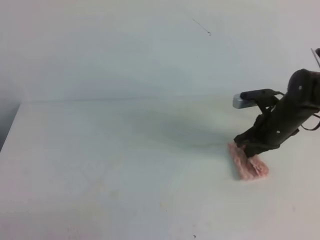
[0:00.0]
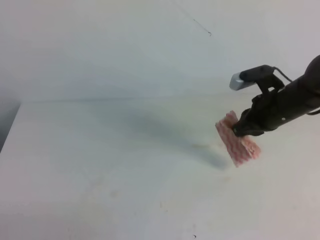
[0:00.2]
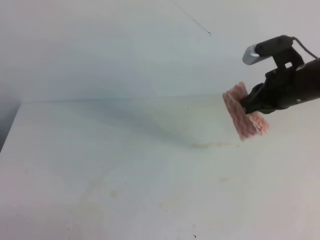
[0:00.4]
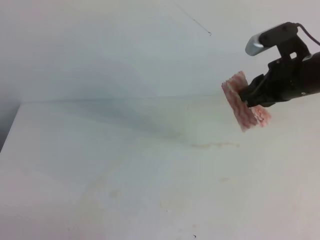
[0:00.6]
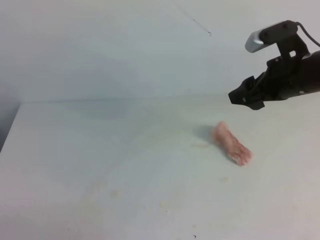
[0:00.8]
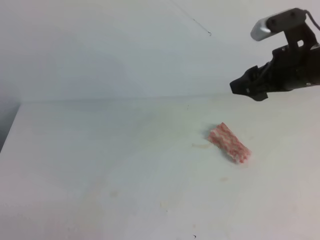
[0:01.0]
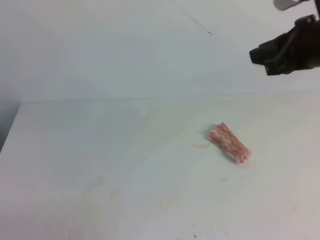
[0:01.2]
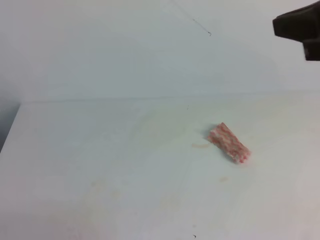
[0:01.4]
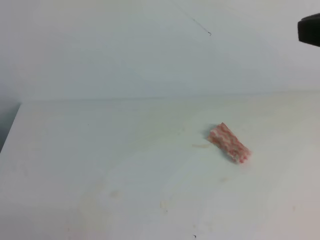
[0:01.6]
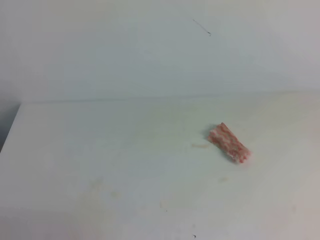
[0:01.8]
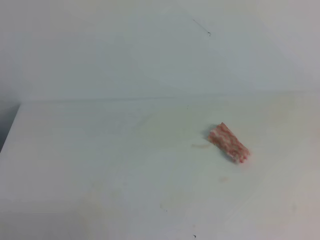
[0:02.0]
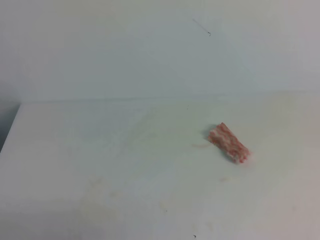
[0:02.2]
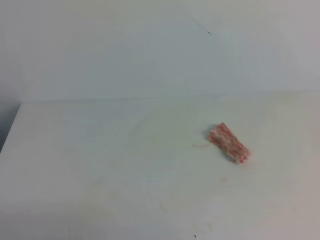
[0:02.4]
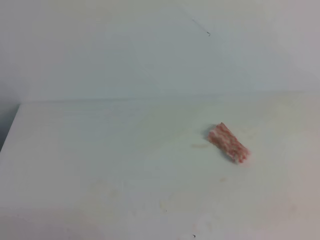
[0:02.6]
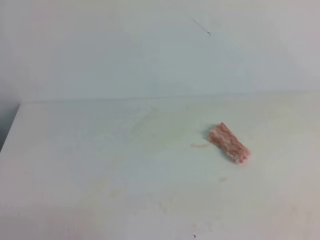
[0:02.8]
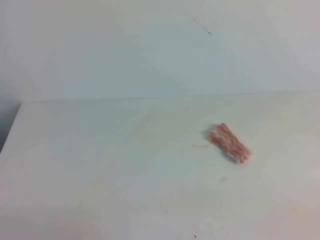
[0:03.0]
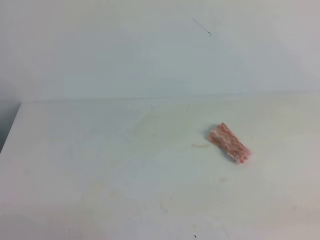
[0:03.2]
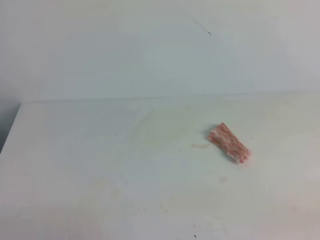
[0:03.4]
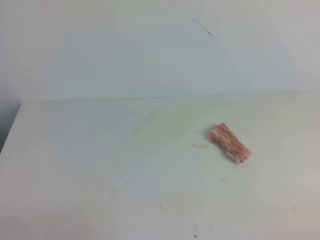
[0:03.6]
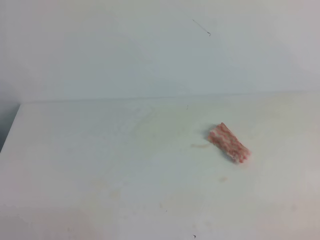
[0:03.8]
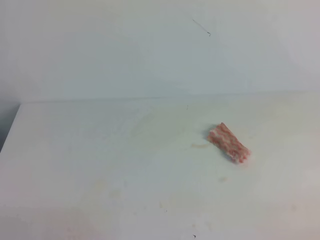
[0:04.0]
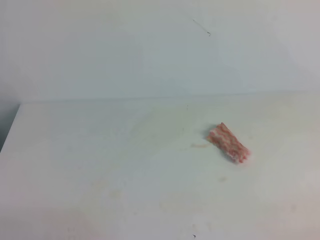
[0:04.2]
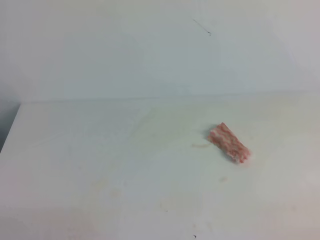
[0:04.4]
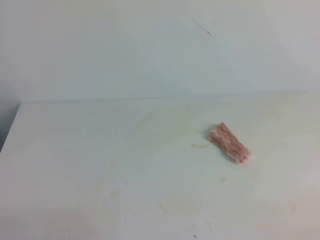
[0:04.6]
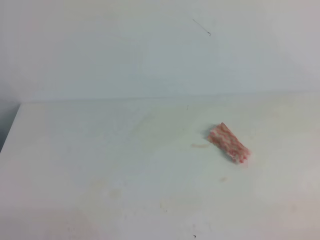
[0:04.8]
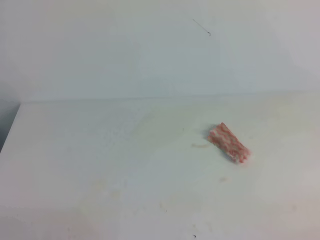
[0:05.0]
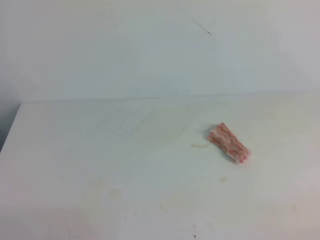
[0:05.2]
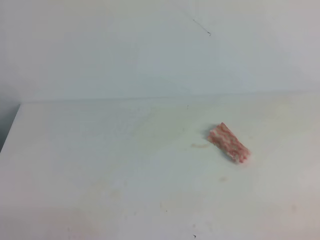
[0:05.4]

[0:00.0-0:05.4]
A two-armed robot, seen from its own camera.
0:00.0 to 0:01.4: The right gripper moves upward and backward, some 30 cm, and opens and closes again.
0:01.4 to 0:02.8: The right gripper travels backward and downward by about 30 cm.
0:04.0 to 0:05.4: Both grippers stay about where they are.
